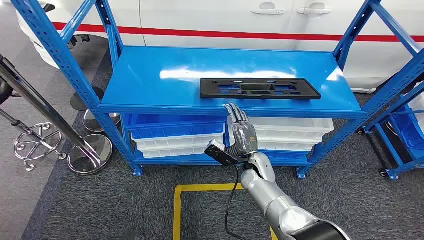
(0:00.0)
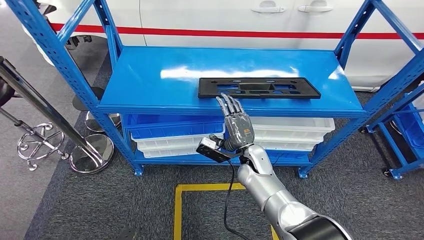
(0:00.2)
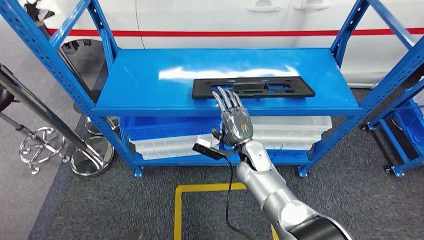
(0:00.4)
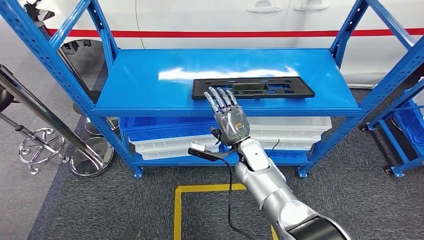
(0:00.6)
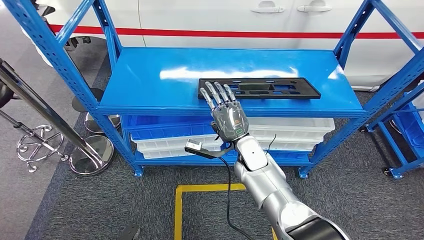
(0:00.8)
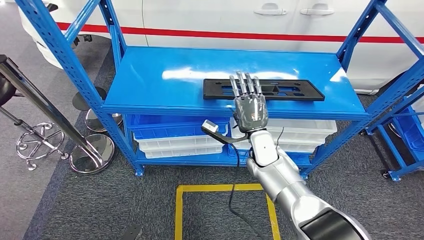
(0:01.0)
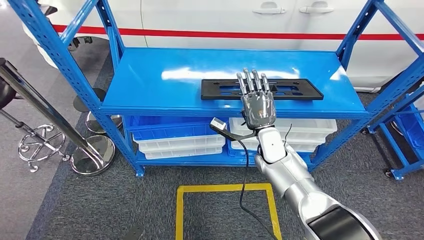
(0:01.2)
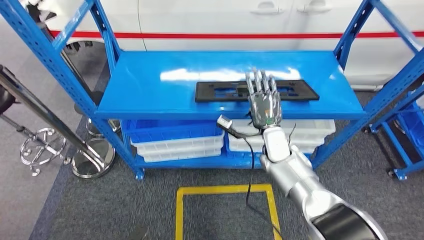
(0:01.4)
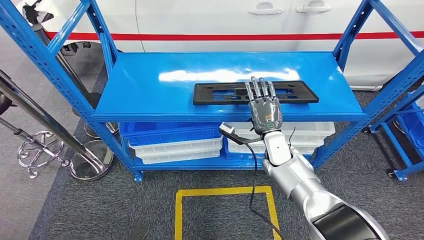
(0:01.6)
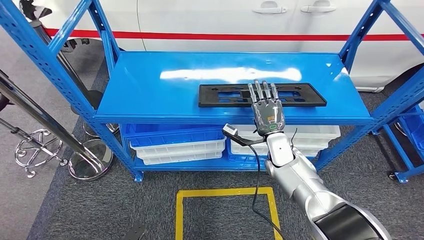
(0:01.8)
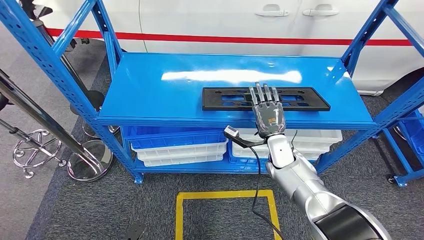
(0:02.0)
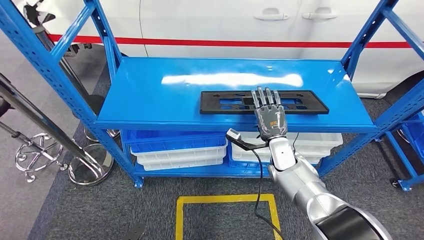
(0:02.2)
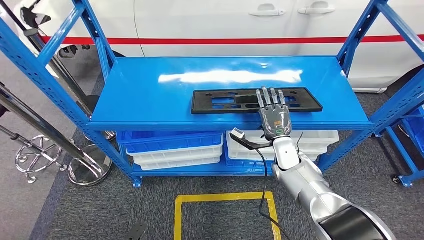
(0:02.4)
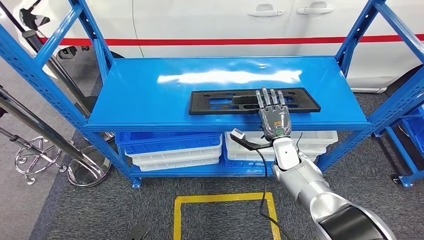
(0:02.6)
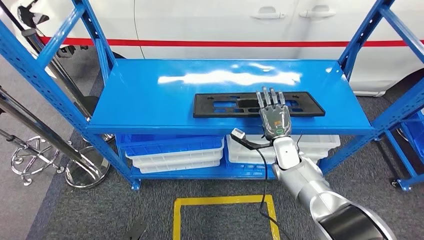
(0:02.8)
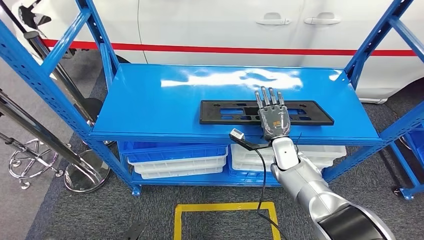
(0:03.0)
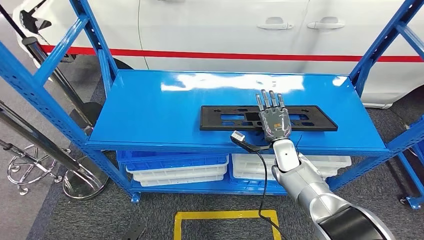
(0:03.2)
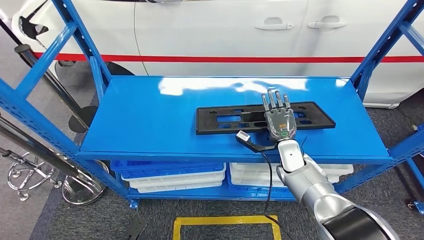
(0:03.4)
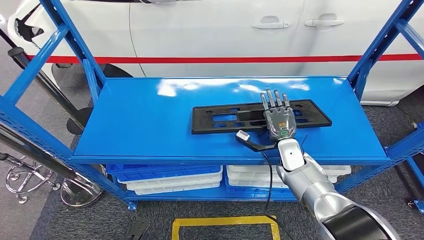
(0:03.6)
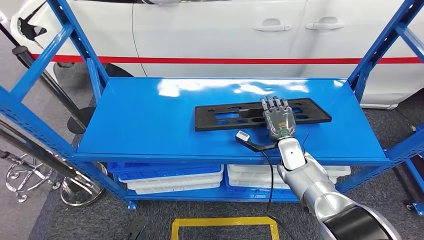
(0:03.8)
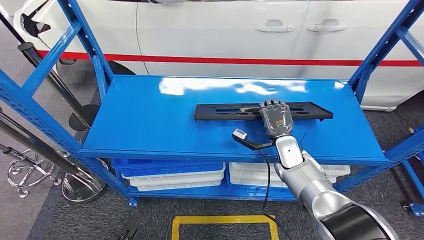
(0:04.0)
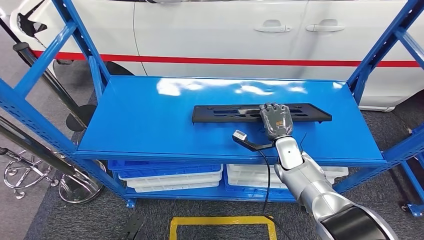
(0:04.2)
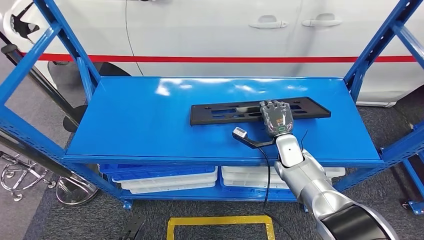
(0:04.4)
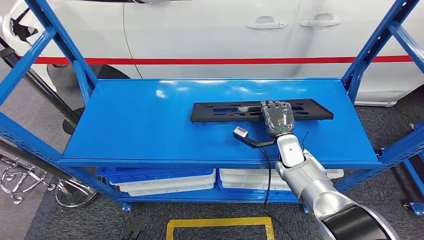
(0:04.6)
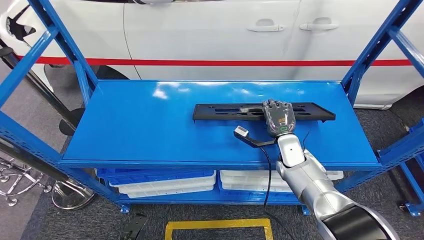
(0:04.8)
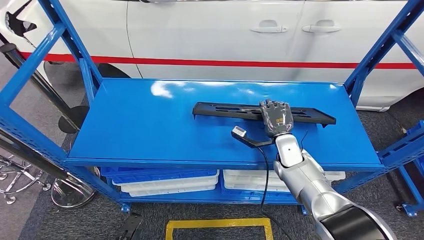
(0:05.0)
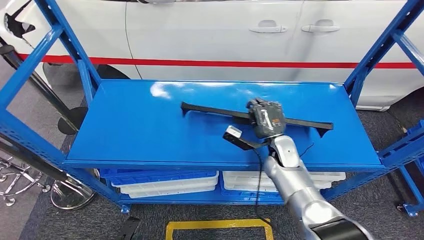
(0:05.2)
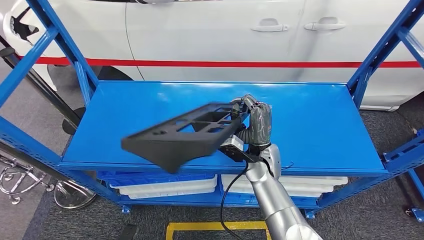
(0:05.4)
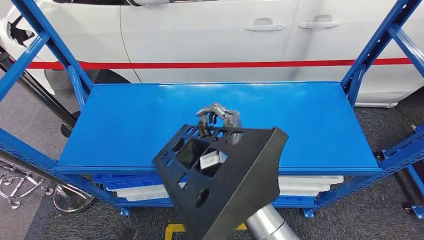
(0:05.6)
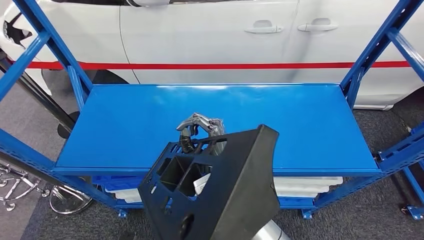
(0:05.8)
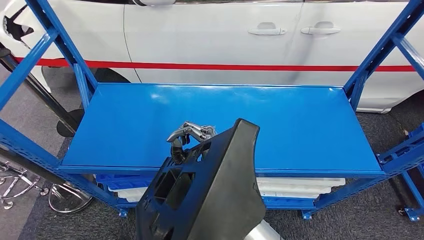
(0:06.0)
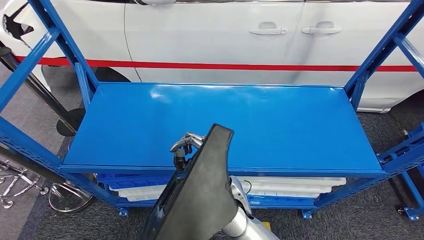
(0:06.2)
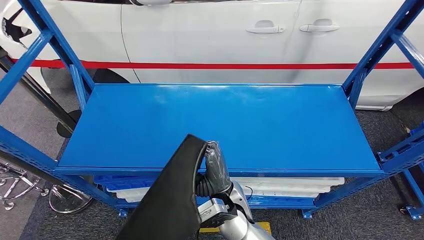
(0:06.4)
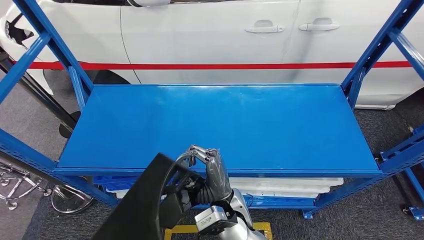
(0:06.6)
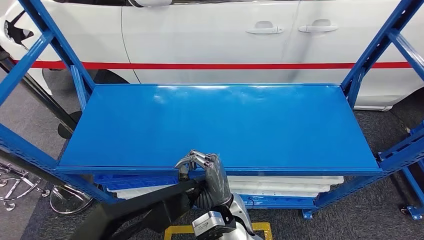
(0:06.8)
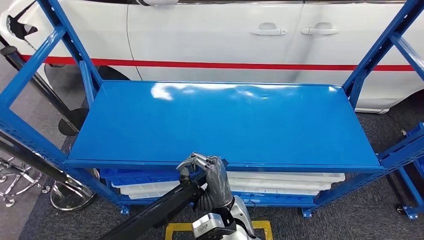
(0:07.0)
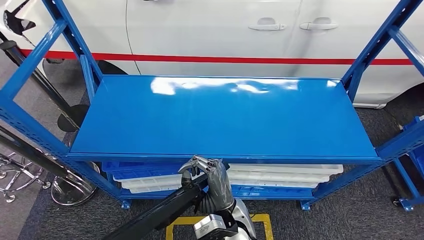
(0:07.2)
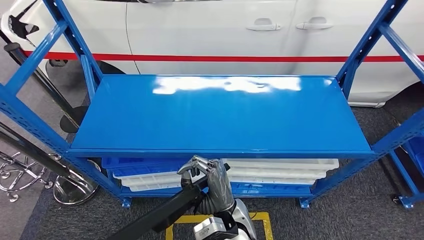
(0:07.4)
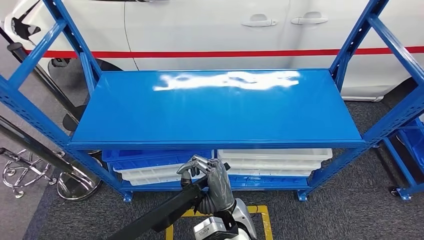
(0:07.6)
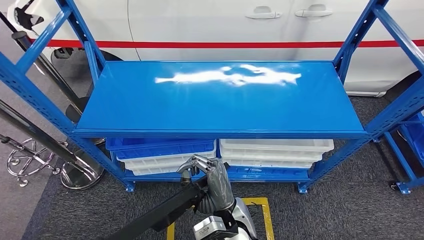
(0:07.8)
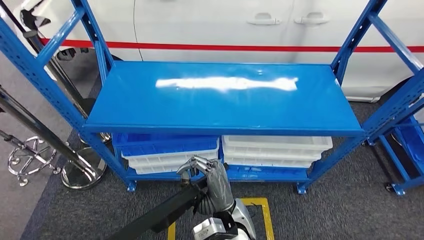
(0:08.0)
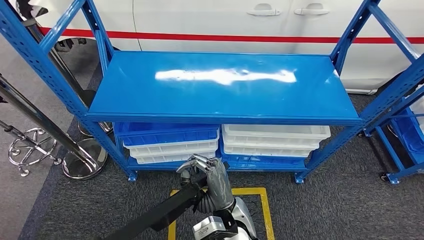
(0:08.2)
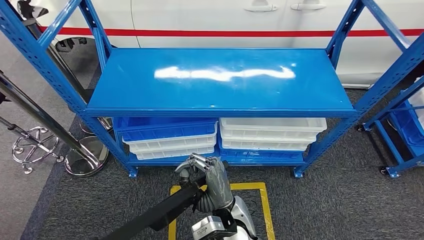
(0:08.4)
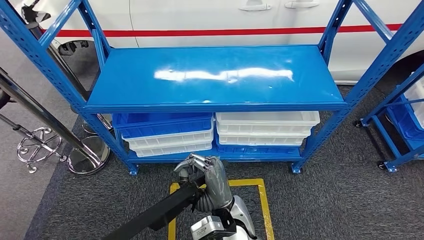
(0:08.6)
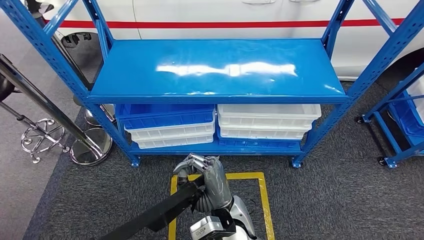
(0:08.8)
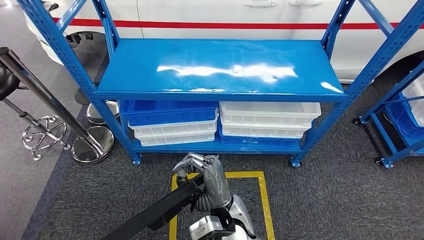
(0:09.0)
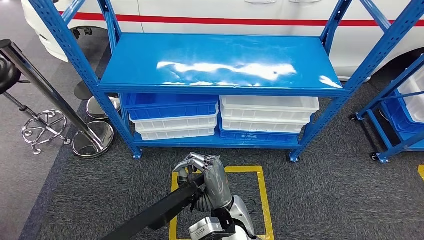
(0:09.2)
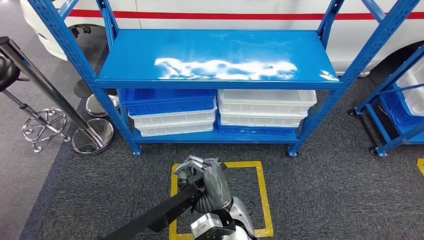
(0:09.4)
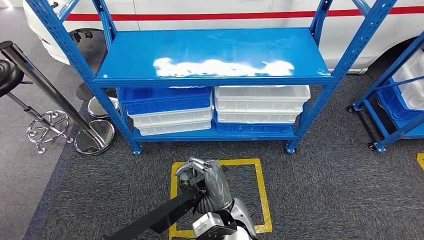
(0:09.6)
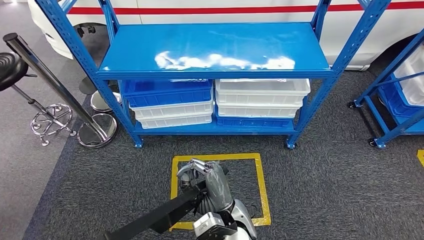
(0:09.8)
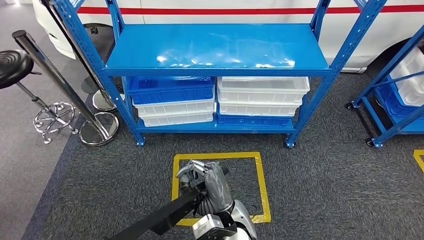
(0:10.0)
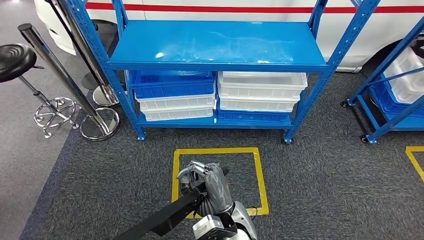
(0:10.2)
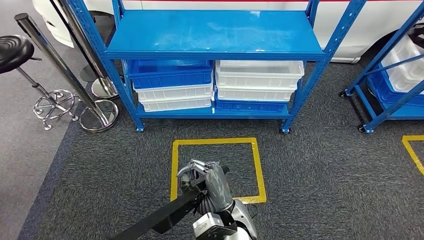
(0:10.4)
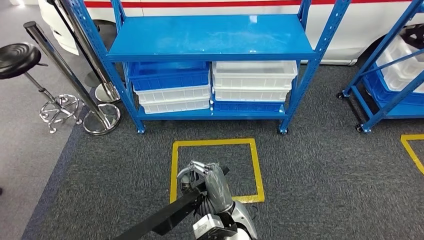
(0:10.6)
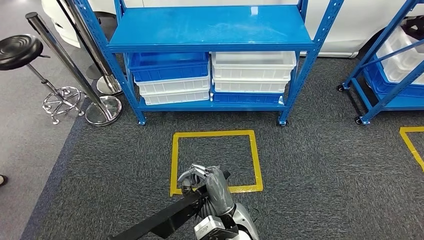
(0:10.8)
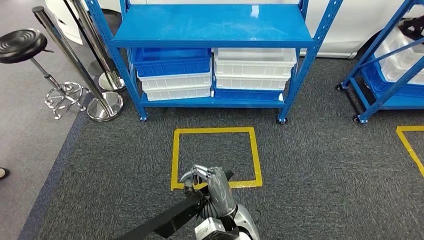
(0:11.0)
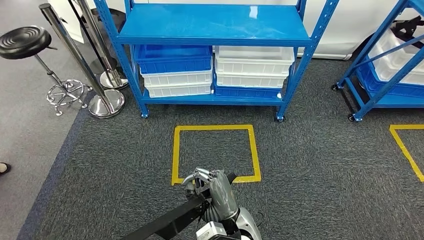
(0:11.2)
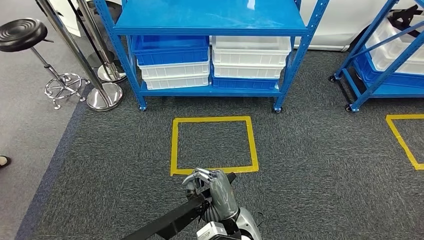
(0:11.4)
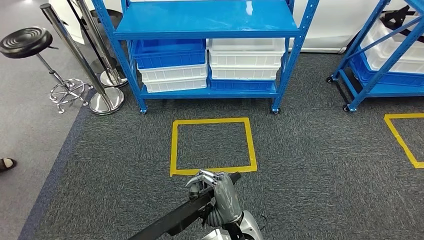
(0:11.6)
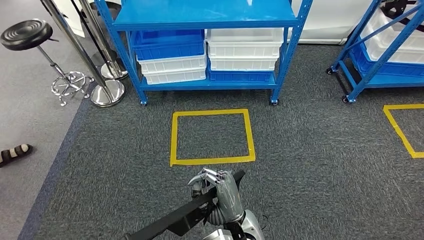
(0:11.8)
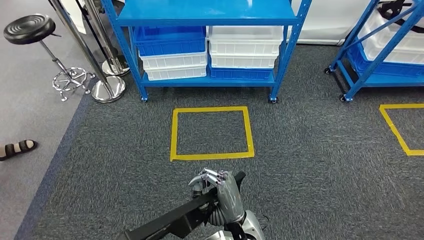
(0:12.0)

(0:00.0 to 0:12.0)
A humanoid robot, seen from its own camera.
Step, 0:00.0 - 0:06.6: Pick up the large material from the shelf.

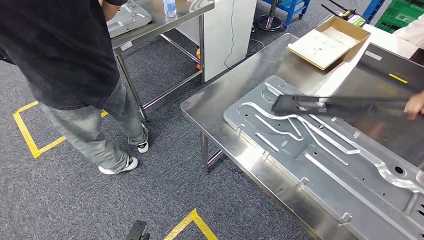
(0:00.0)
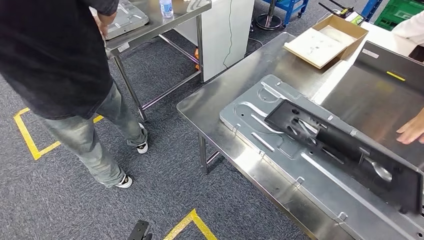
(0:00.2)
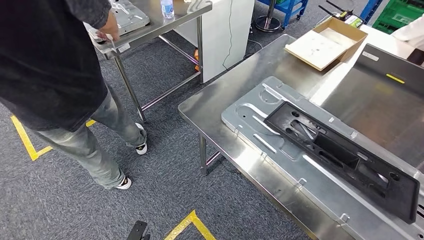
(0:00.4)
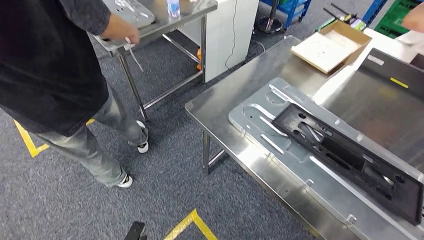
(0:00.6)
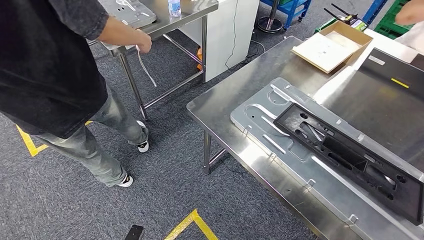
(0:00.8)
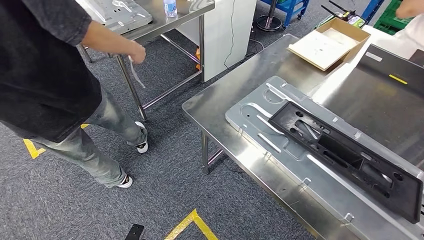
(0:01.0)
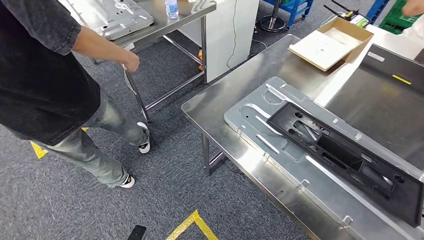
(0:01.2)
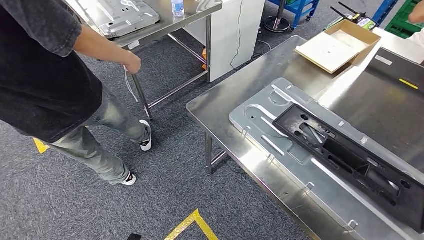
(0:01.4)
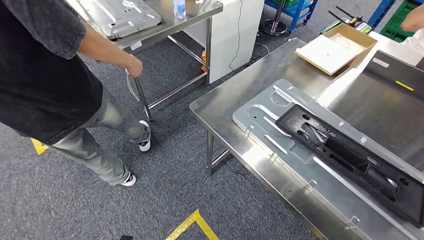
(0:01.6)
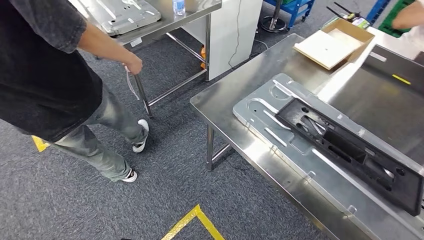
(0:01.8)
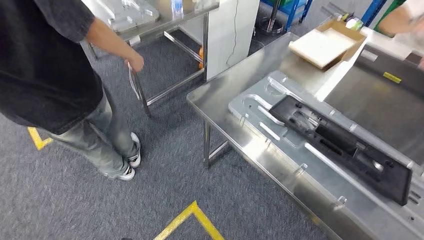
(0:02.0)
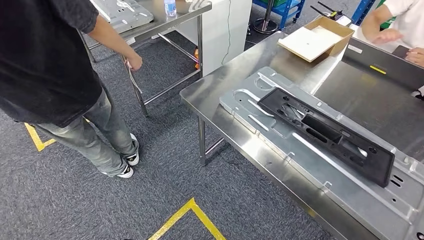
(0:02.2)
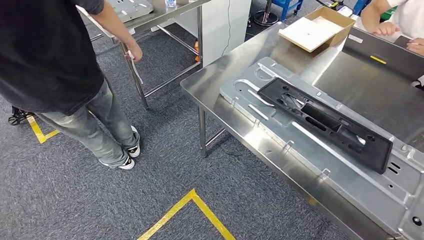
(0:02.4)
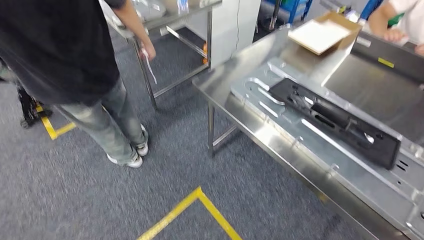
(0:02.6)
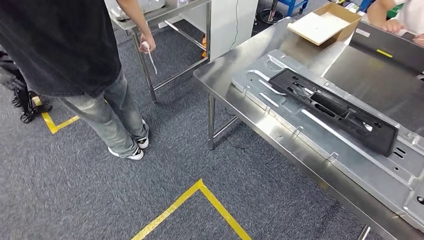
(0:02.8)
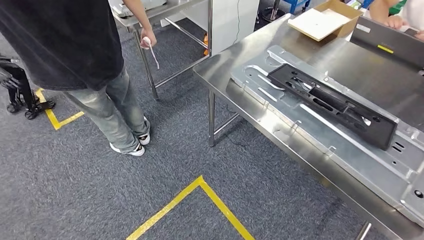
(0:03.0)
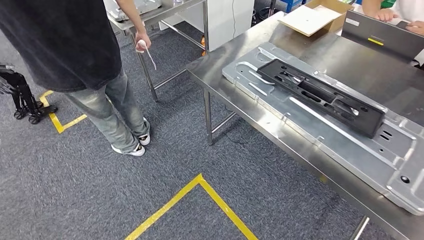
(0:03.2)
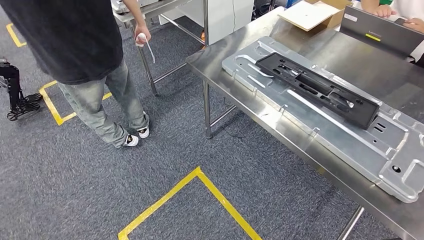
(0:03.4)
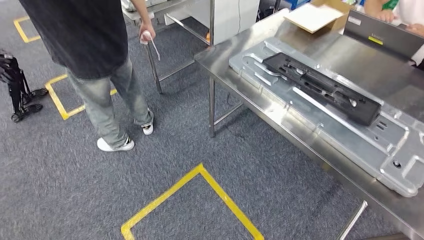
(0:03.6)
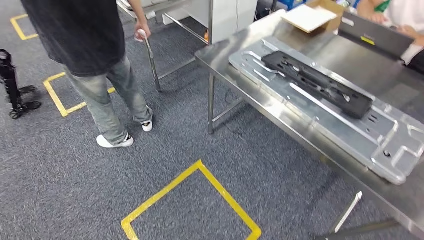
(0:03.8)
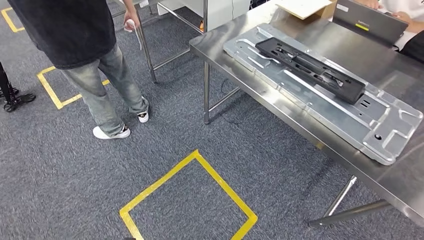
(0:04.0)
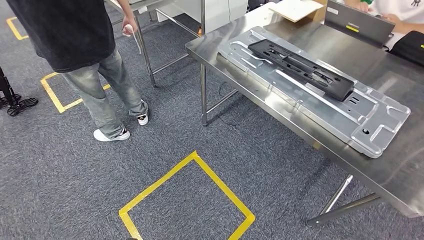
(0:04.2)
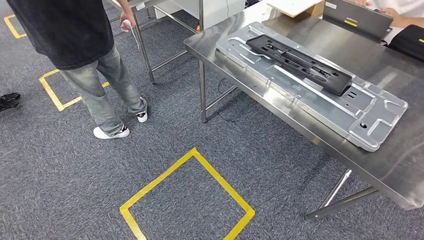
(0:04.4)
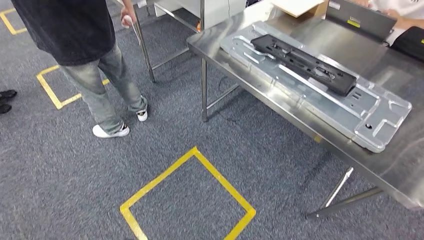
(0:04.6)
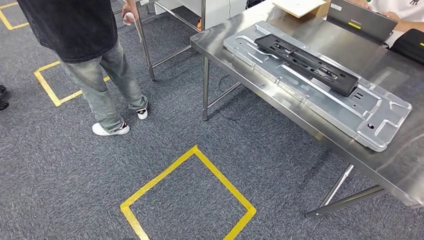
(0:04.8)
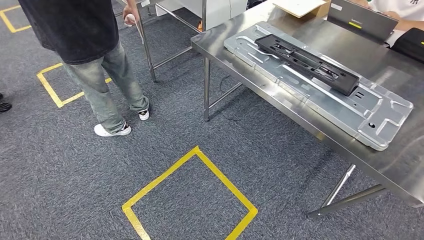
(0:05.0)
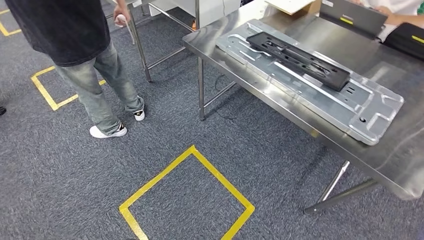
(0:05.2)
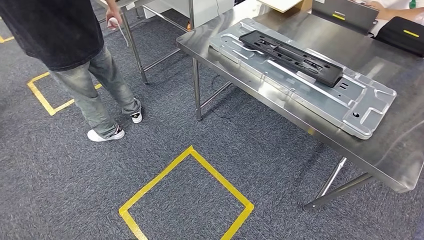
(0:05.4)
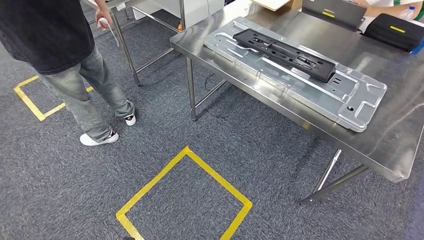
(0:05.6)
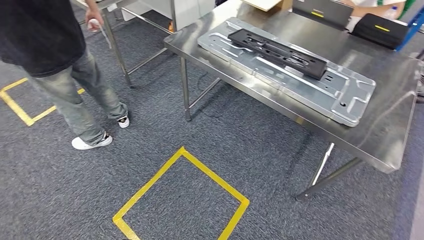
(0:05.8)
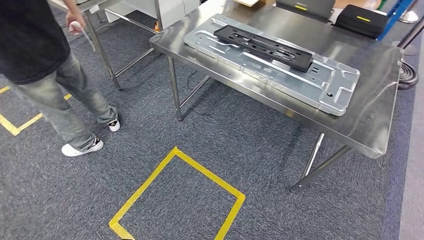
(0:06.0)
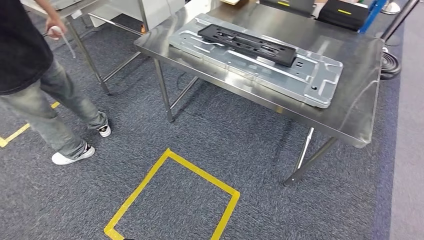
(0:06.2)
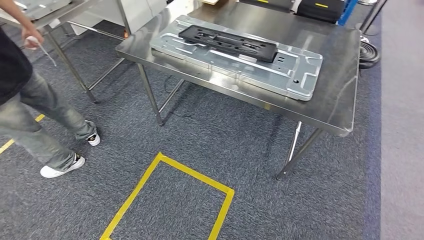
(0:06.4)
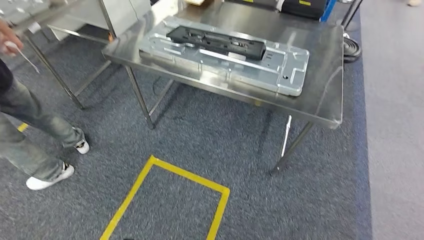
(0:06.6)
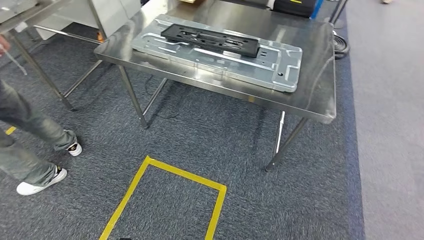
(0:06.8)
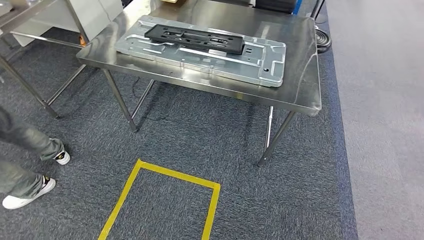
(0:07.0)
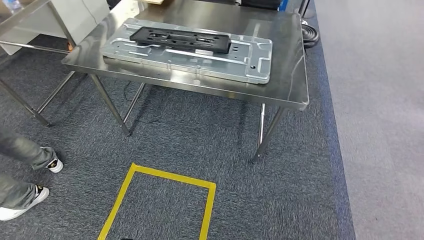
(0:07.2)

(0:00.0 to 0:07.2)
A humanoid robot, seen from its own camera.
Step, 0:00.0 - 0:03.6: Insert the large material into the corresponding slot on the workbench.
